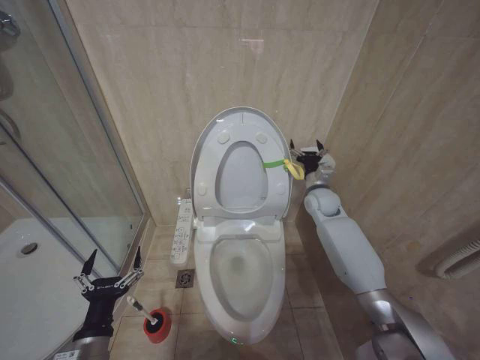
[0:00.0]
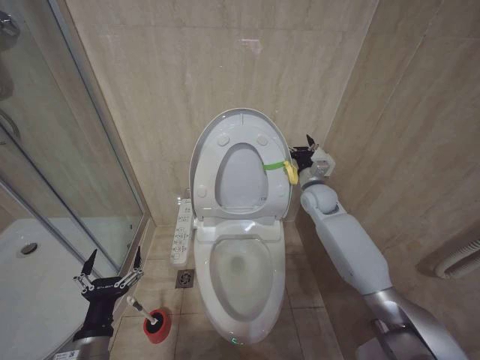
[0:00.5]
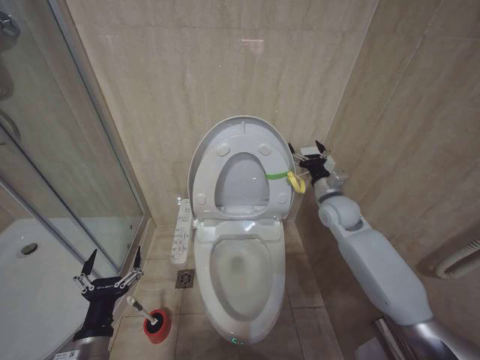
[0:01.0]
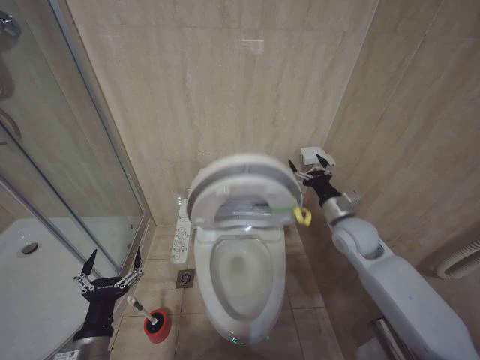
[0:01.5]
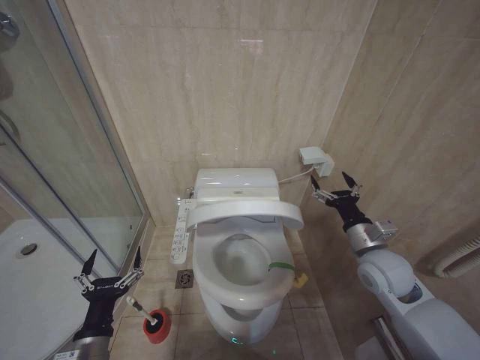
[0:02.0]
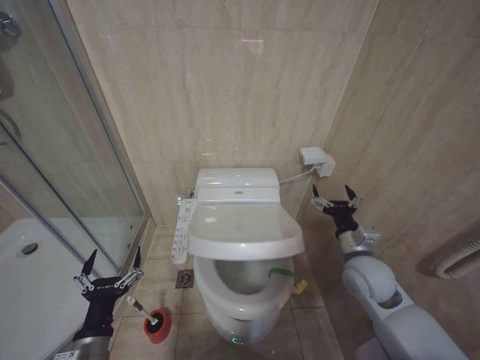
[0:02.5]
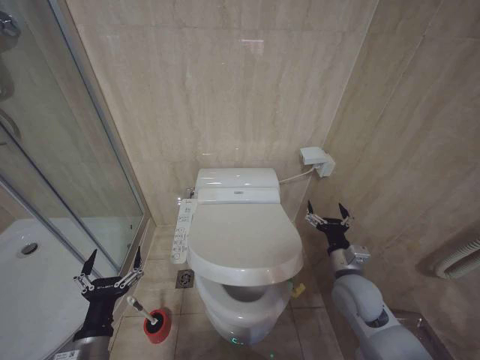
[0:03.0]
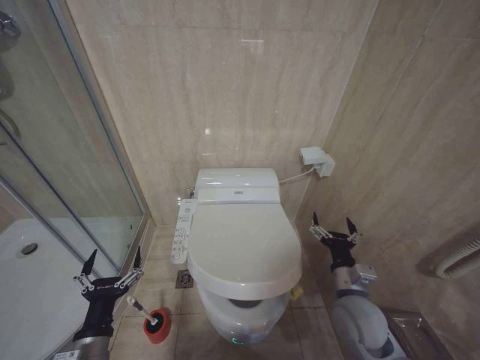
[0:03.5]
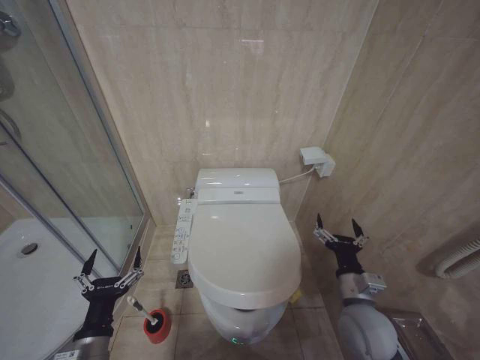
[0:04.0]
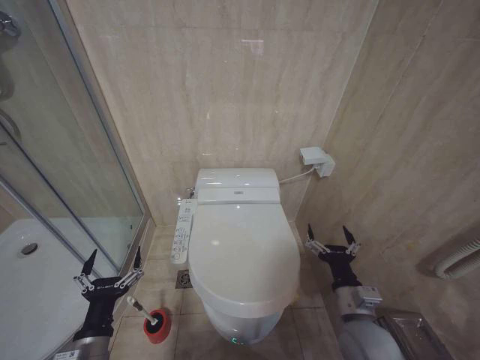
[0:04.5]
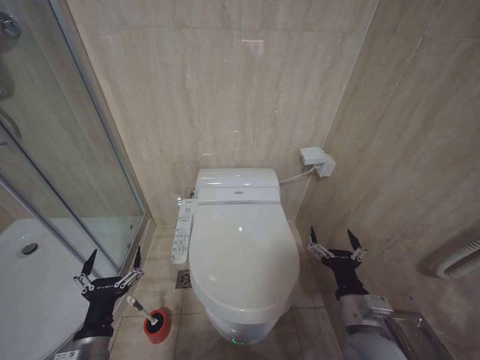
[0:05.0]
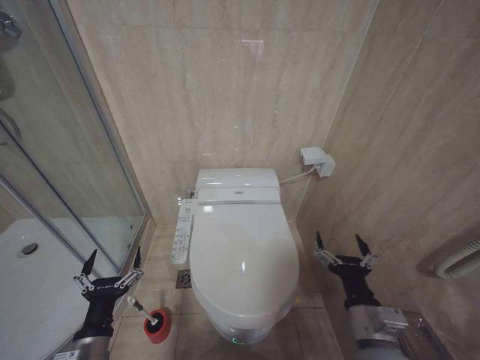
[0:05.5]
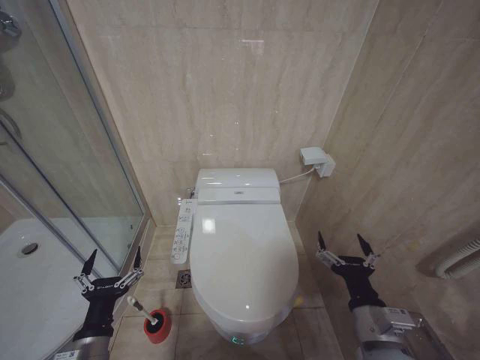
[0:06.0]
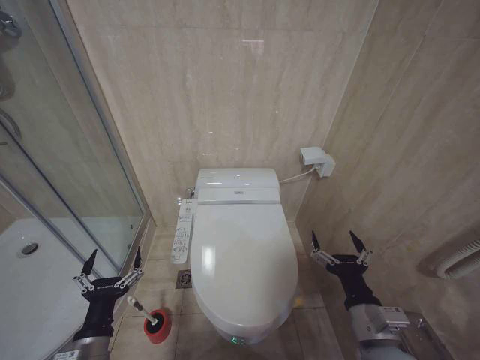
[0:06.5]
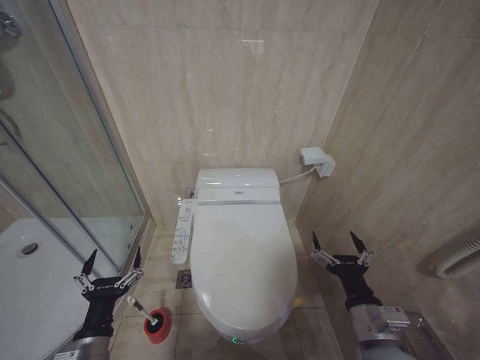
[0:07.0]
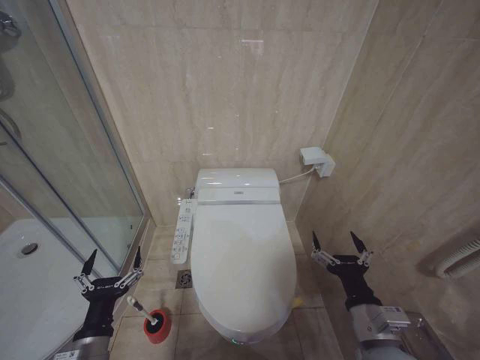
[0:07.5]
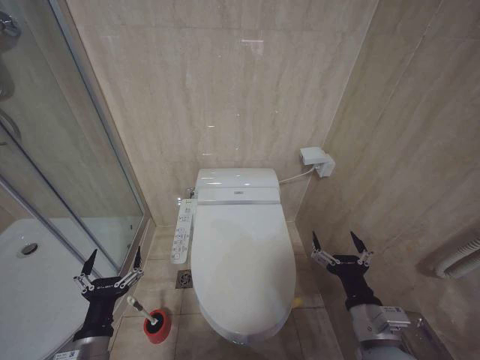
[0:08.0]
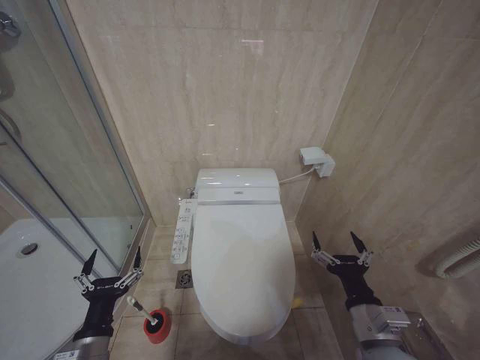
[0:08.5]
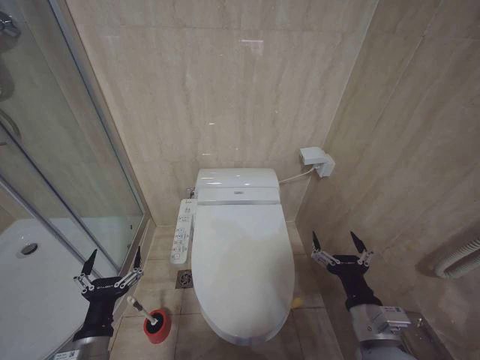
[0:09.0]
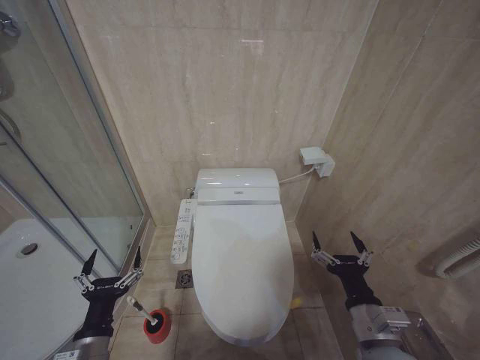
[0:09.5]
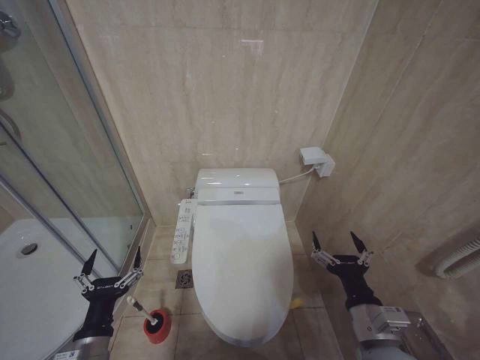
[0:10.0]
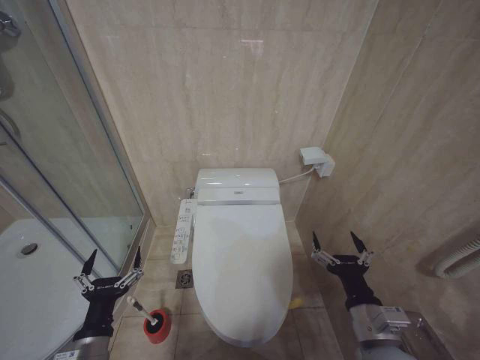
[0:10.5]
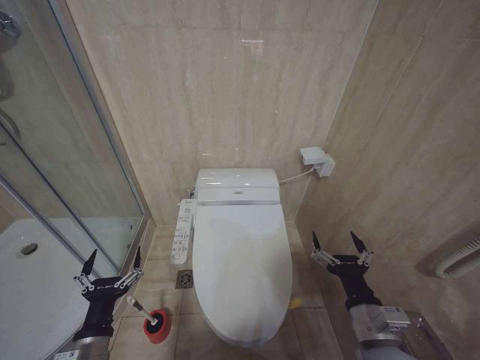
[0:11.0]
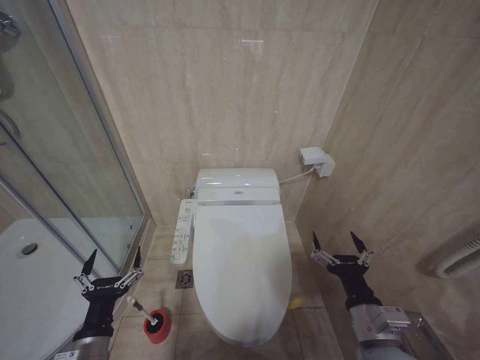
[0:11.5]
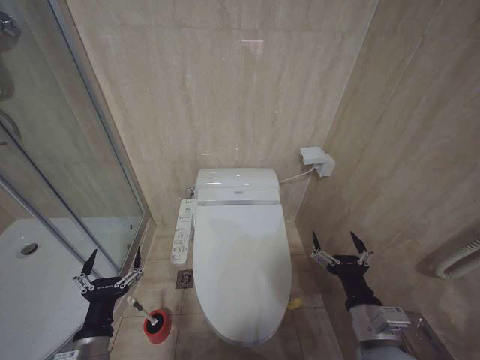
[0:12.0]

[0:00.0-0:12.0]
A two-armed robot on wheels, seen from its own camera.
Task of the whole recording: Open the toilet lid, clean the toilet bowl with a toilet brush, close the toilet lid, and flush.
0:00.0 to 0:02.0: The right gripper travels backward by approximately 20 cm.
0:02.0 to 0:04.0: The right gripper shifts some 15 cm downward, backward and to the left.
0:04.0 to 0:06.0: The right gripper travels backward by approximately 10 cm.
0:08.0 to 0:12.0: The two grippers keep their place.

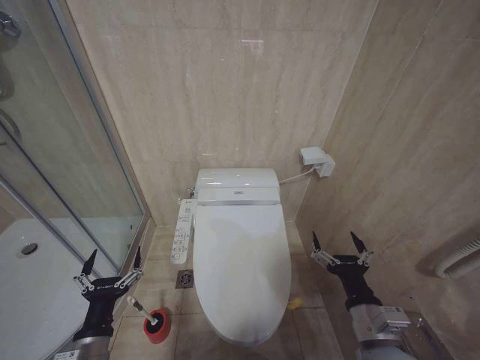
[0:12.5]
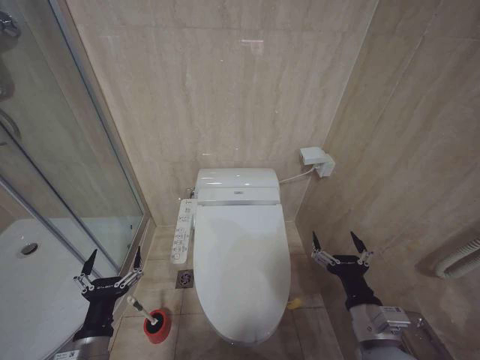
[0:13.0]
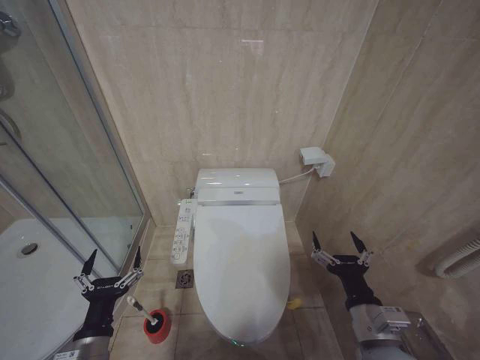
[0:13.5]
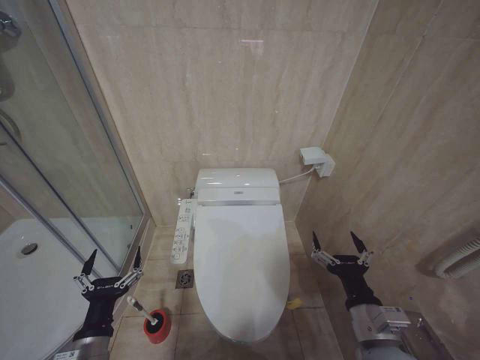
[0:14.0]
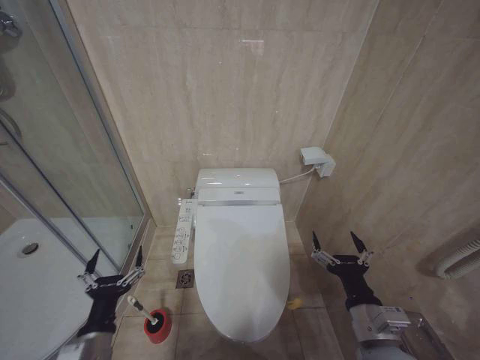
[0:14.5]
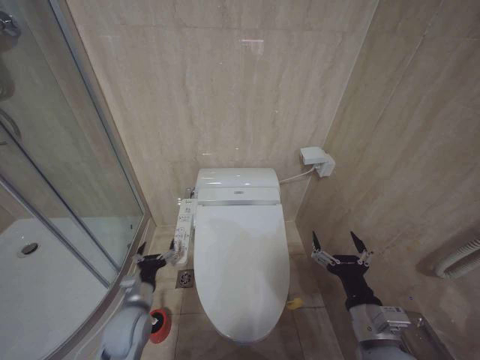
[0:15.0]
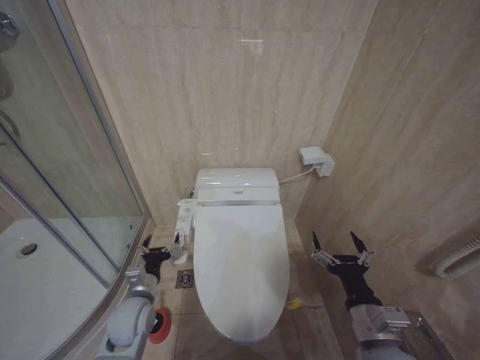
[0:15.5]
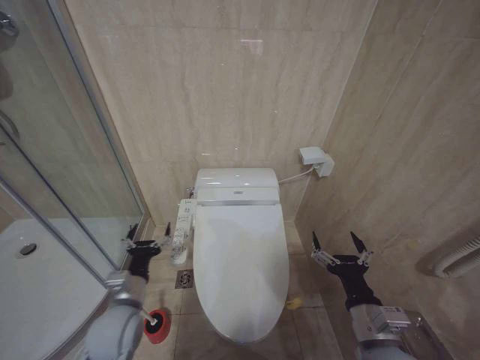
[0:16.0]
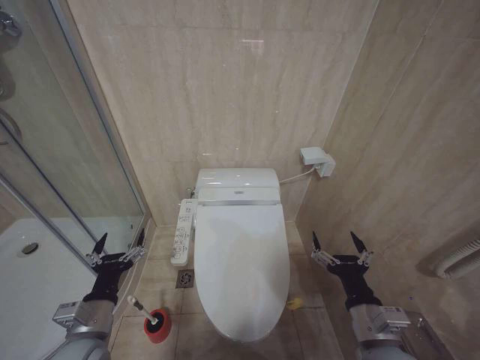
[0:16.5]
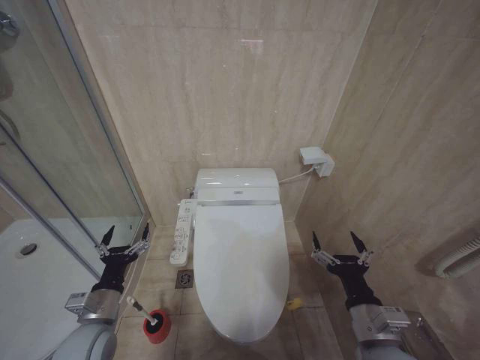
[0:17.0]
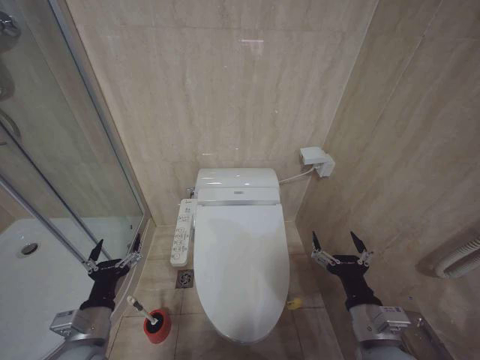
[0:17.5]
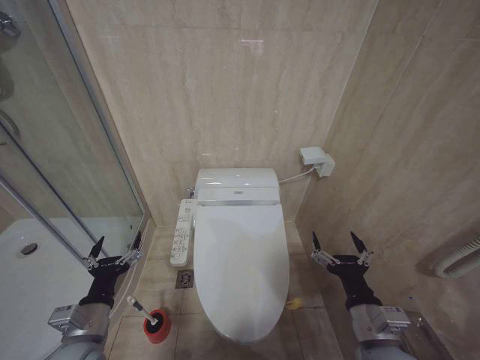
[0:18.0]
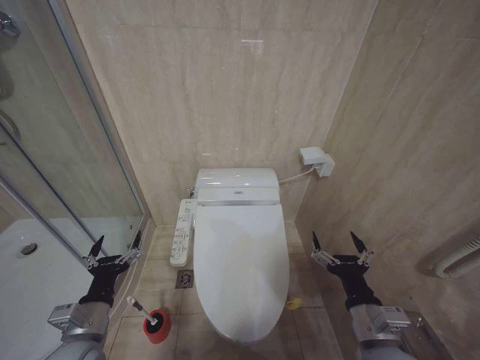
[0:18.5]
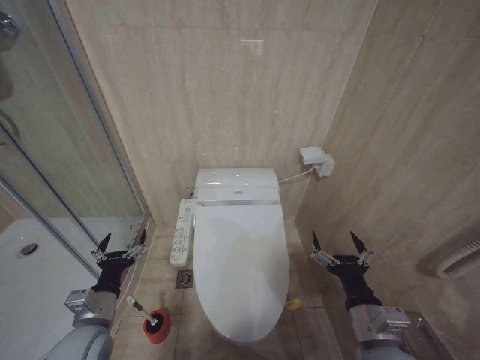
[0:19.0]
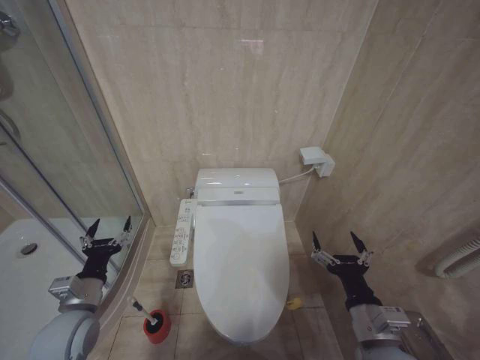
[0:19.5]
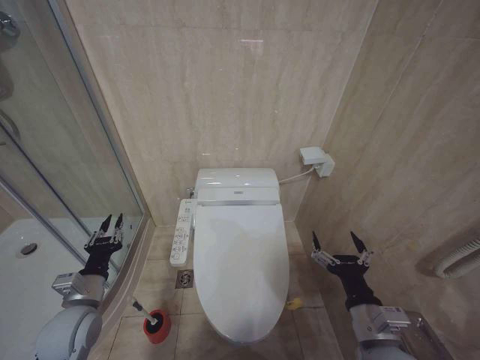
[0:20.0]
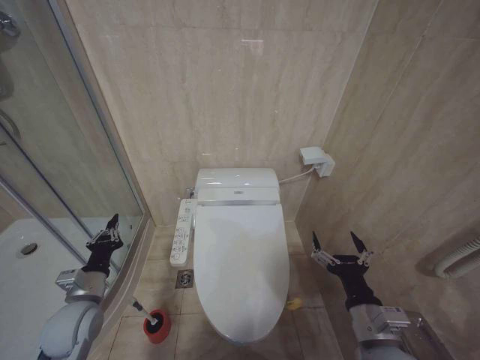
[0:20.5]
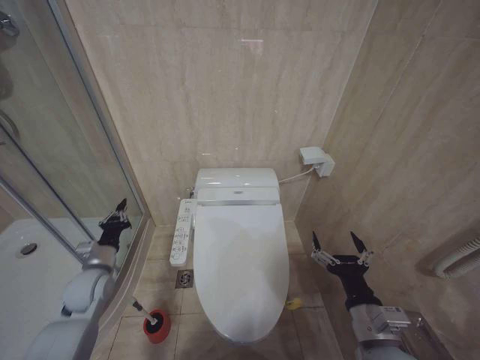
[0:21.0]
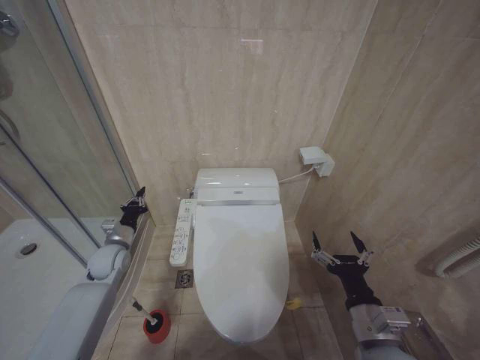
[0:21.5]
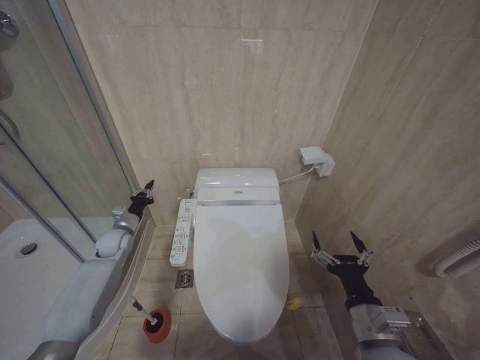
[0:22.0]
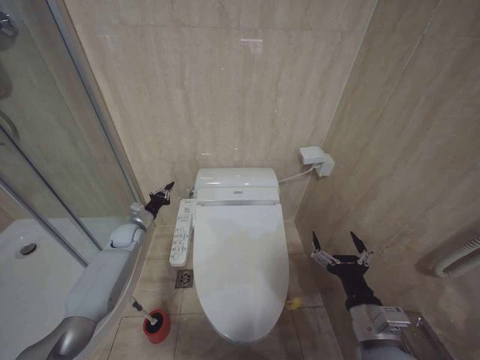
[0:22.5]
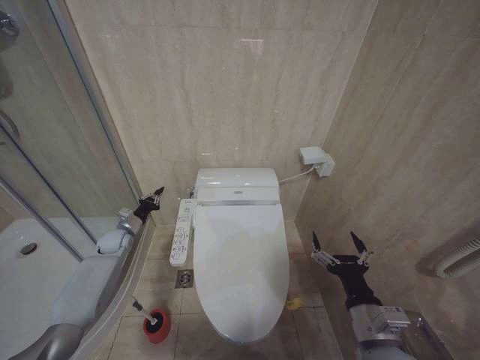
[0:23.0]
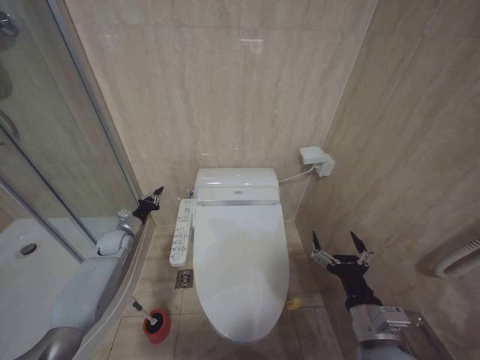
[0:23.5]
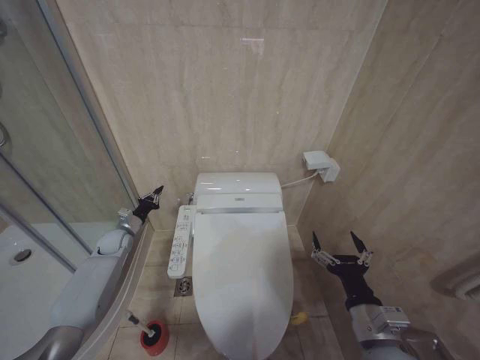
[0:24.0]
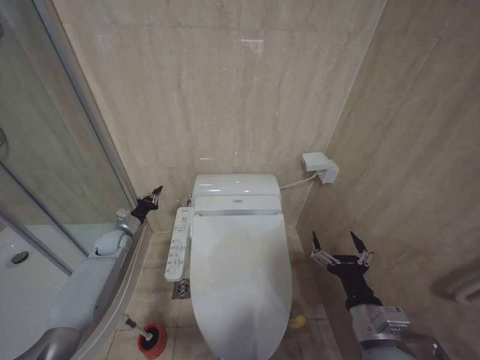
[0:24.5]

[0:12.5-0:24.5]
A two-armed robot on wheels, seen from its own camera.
Task of the whole recording: Open the toilet lid, clean the toilet bowl with a toilet brush, close the toilet lid, and flush.
0:12.5 to 0:14.5: The two grippers keep their place.
0:14.5 to 0:16.5: The left gripper goes forward and returns, approximately 15 cm each way.
0:16.5 to 0:18.5: The grippers make only small movements.
0:18.5 to 0:20.5: The left gripper is displaced forward by some 5 cm, and closes its fingers.
0:20.5 to 0:22.5: The left gripper heads forward, covering roughly 25 cm.
0:22.5 to 0:24.5: The grippers stay close to where they were, moving slightly.

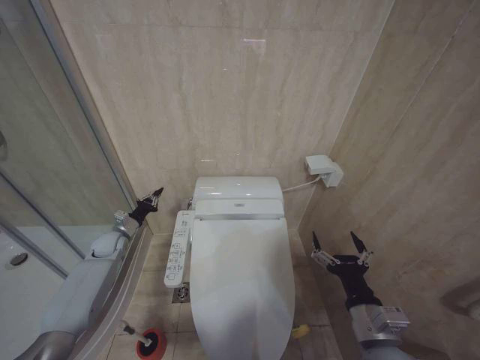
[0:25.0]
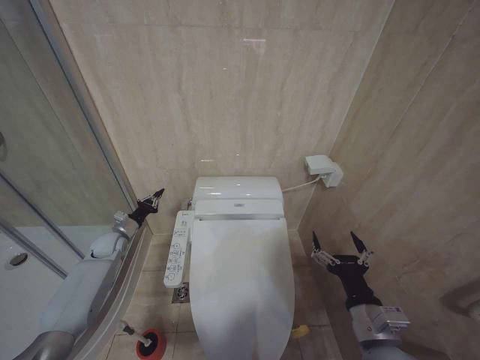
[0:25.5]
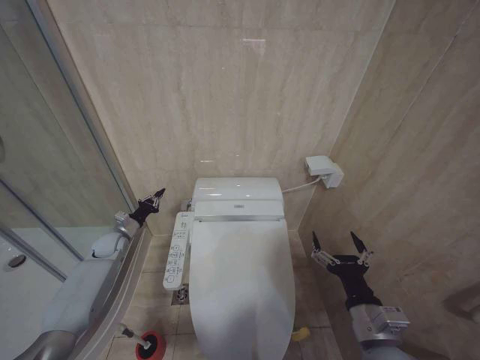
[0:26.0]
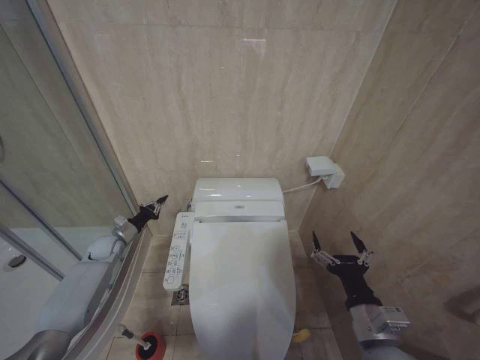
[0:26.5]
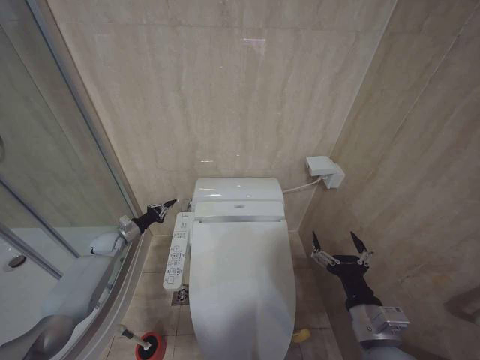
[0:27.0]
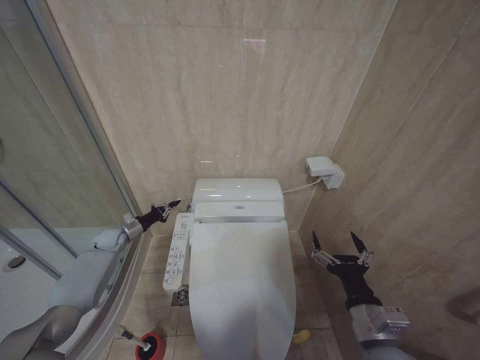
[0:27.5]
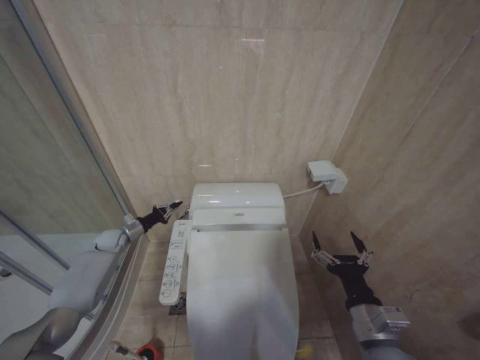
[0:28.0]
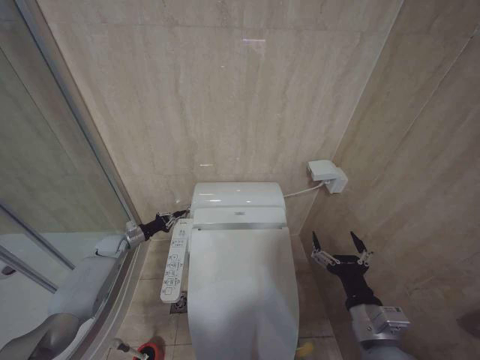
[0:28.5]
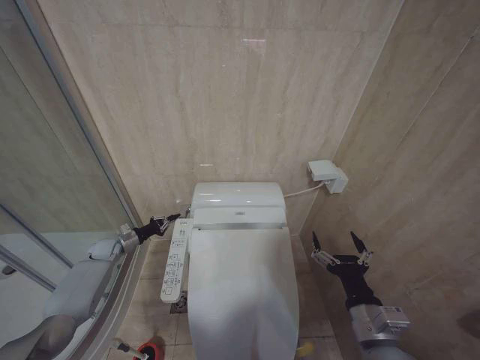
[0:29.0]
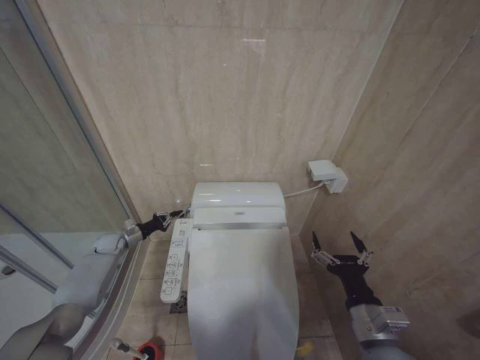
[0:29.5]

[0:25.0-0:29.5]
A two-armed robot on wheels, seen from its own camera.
Task of the whole recording: Open the toilet lid, clean the toilet bowl with a toilet brush, close the toilet lid, and flush.
0:27.0 to 0:29.5: The grippers move only a little.
